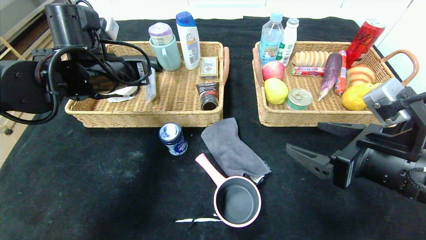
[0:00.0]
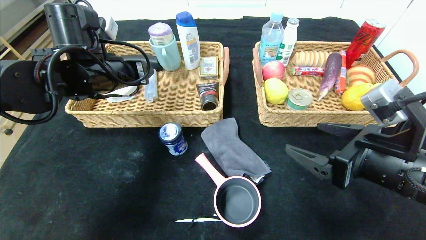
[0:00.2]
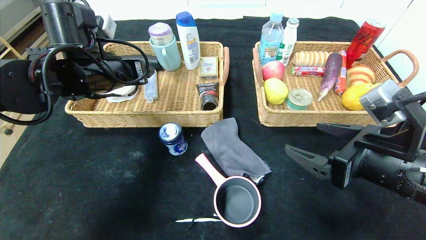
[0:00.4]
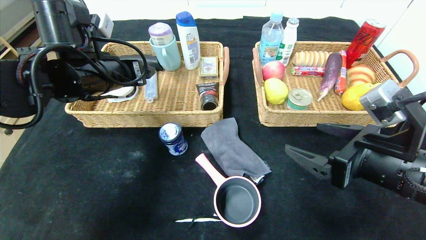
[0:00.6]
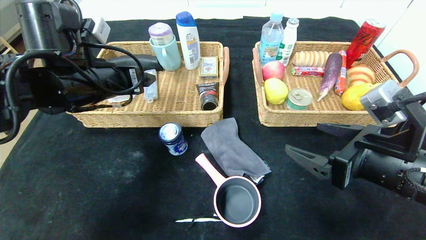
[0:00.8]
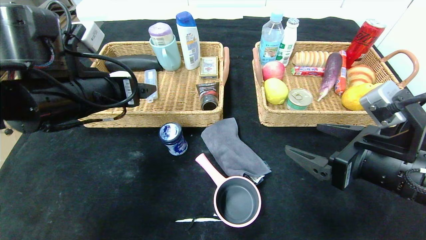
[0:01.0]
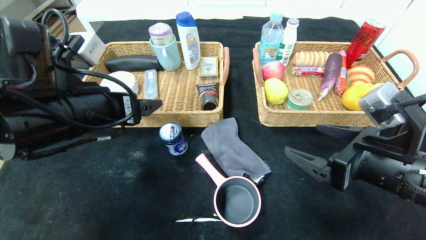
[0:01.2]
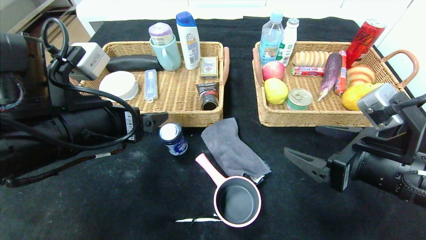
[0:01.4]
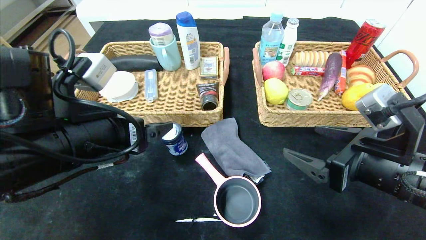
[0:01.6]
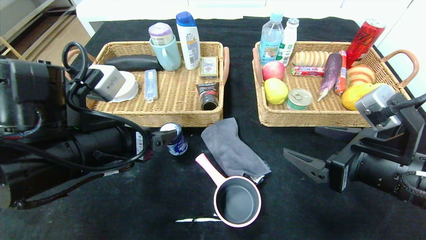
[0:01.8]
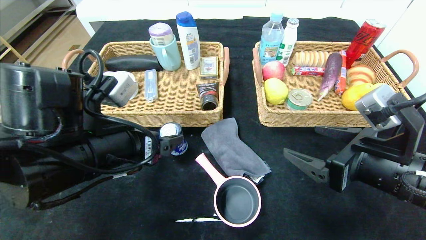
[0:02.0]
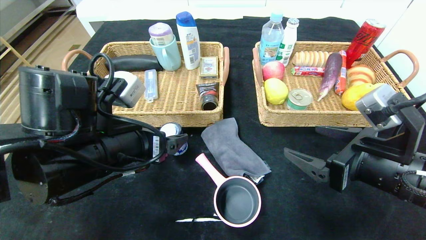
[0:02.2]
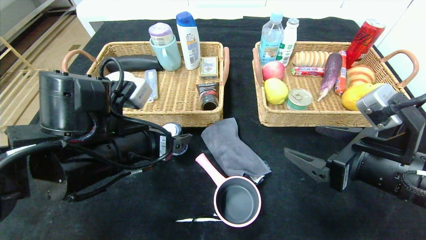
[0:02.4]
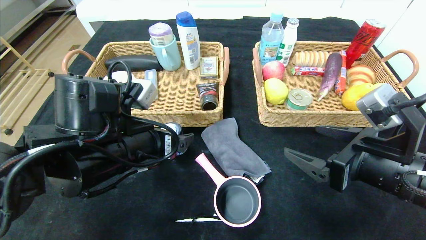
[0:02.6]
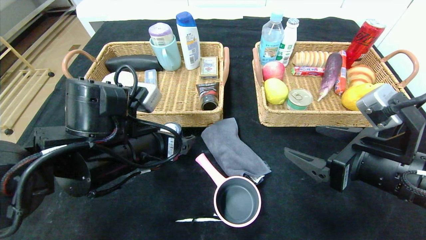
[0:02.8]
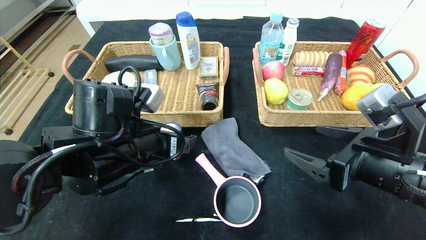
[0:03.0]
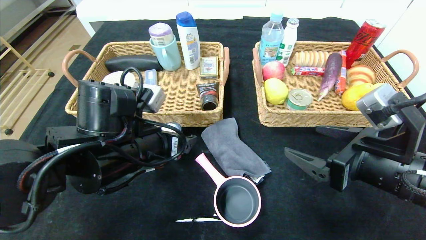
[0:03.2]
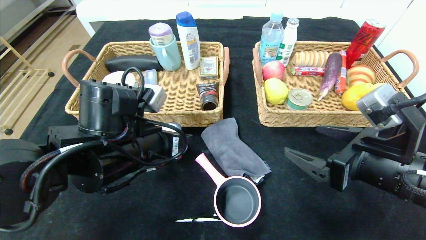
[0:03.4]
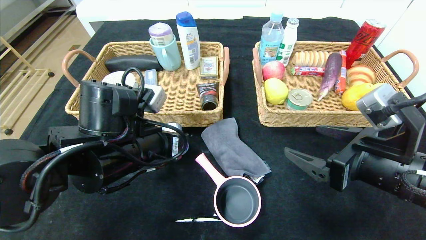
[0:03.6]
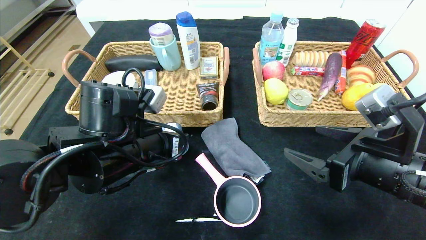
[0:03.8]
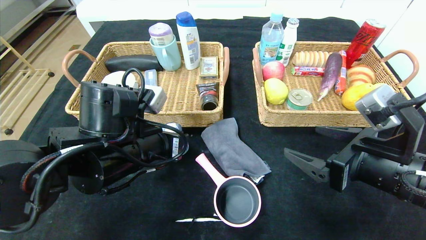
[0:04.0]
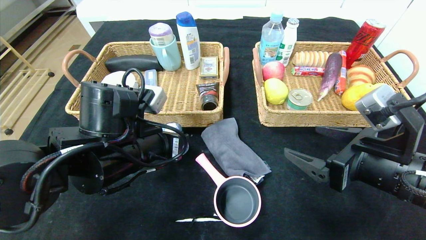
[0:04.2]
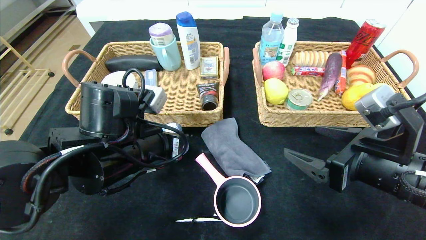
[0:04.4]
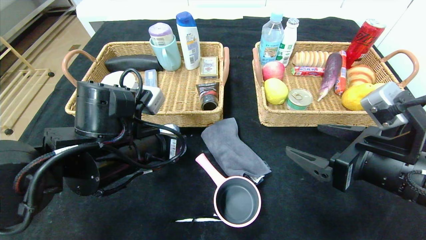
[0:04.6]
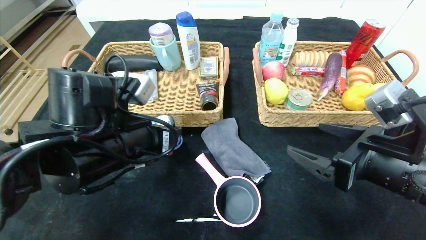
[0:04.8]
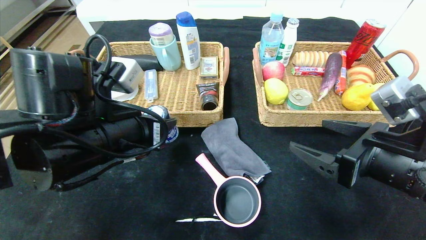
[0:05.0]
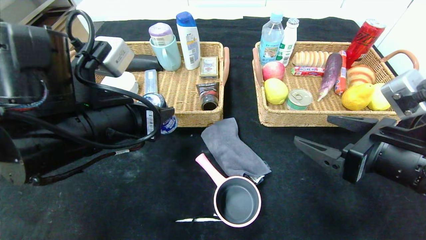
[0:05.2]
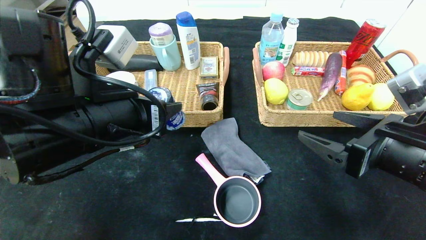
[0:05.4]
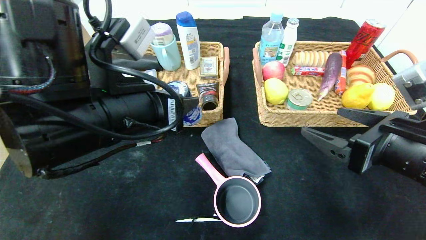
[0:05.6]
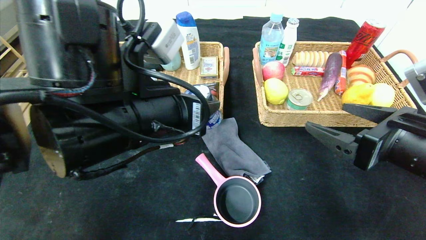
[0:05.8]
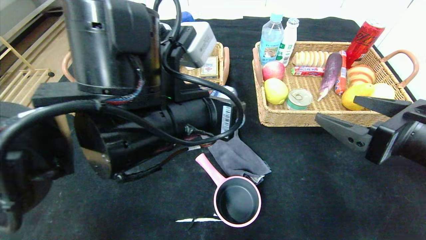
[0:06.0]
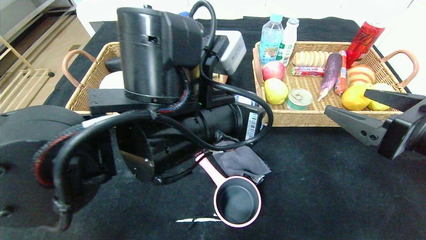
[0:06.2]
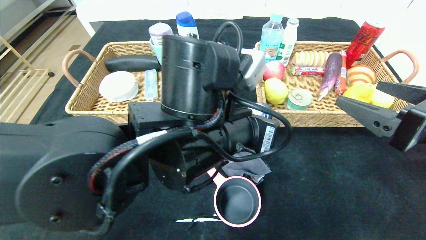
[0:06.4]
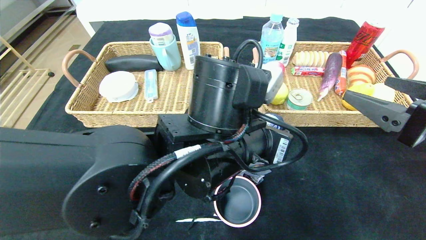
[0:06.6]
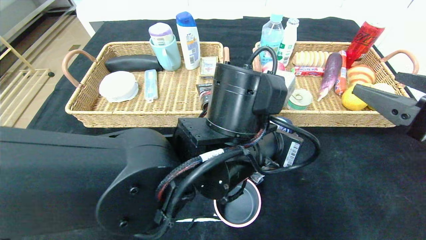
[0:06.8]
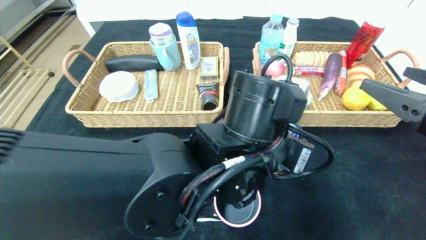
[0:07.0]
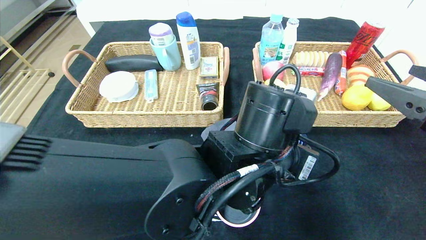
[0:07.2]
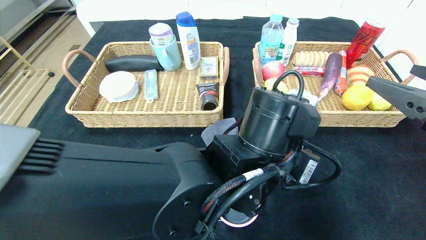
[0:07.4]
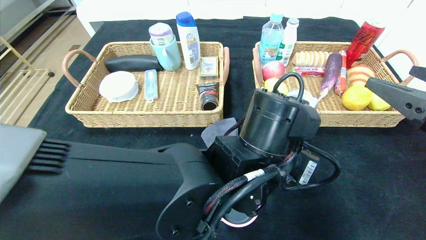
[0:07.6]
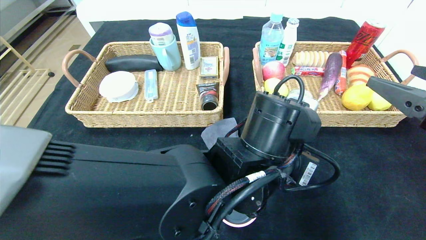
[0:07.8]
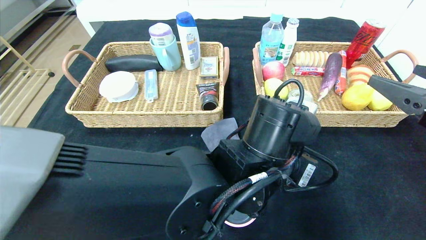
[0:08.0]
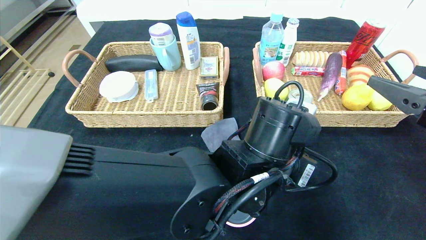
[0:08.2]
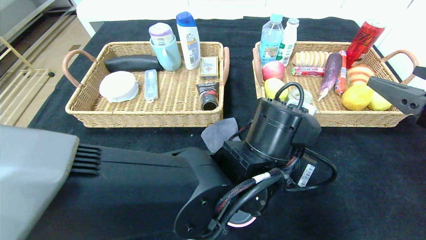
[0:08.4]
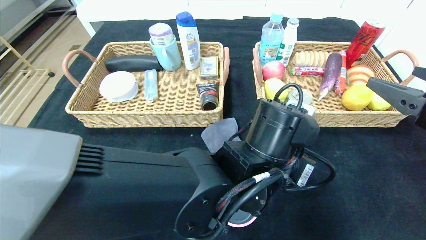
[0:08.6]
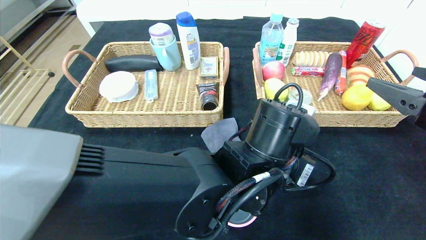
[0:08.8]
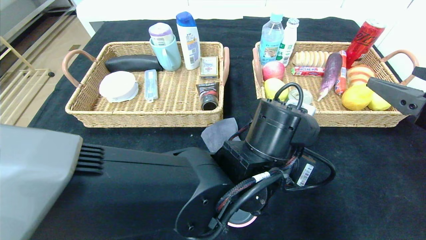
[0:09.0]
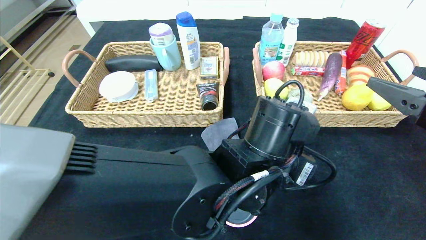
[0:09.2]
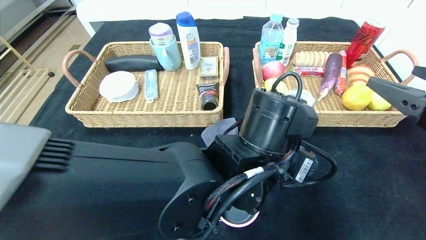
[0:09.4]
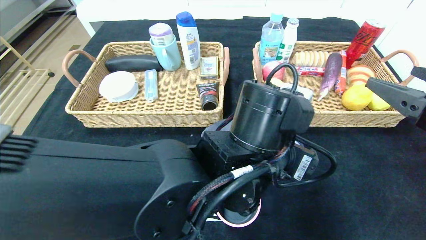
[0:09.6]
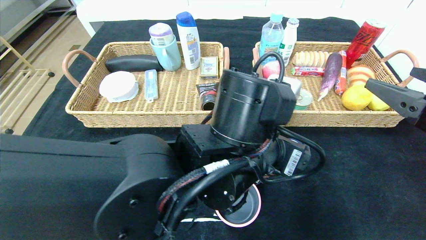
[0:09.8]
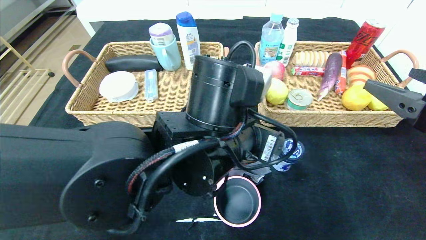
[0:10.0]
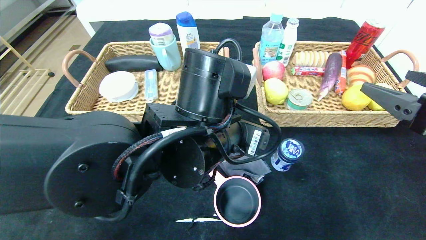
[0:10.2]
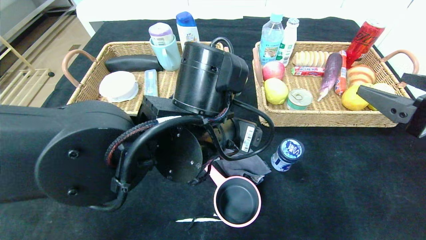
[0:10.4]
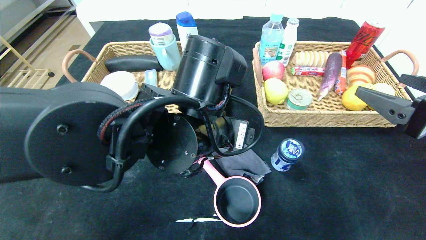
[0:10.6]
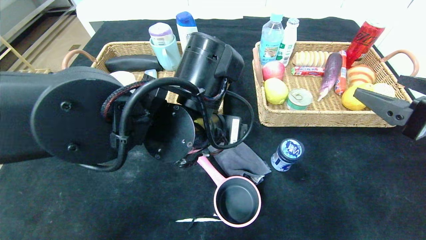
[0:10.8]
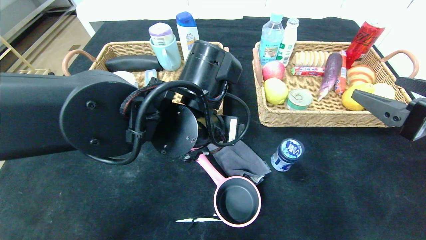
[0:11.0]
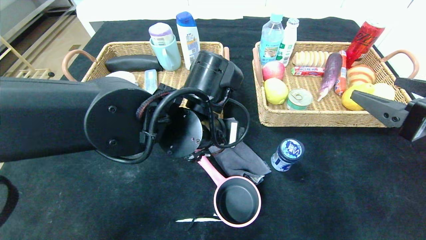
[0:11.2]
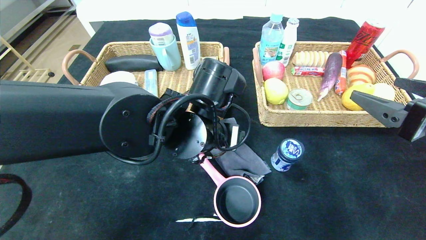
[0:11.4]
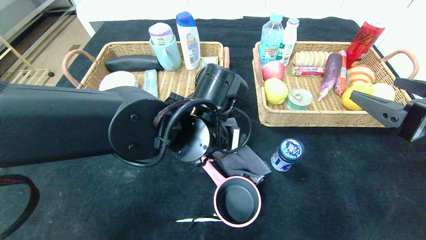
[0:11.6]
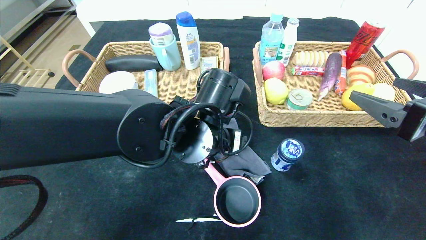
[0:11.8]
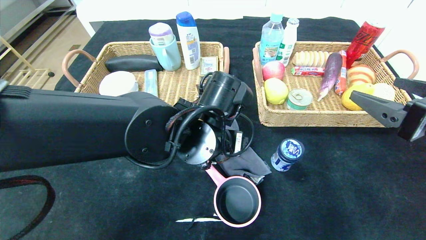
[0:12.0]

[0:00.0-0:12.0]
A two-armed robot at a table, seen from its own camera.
Step, 0:02.0 to 0:10.0: Place the round chewing gum in the center of the table.
0:00.0 to 0:01.6: The left gripper is displaced backward by about 15 cm, and opens up.
0:01.6 to 0:03.0: The left gripper changes place by roughly 5 cm.
0:03.0 to 0:04.4: The left gripper closes.
0:04.4 to 0:06.0: The left gripper heads to the right and upward, covering about 10 cm. Meanwhile the right gripper ends up some 5 cm from where it was.
0:06.0 to 0:07.6: The right gripper ends up some 5 cm from where it was. Meanwhile the left gripper is displaced to the right and downward by about 15 cm.
0:07.6 to 0:09.0: The grippers stay close to where they were, moving slightly.
0:09.0 to 0:10.4: The left gripper travels to the left and upward by roughly 10 cm.
0:10.4 to 0:12.0: The left gripper ends up approximately 5 cm from where it was.

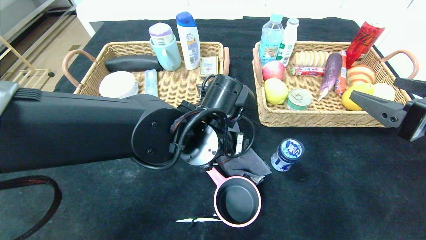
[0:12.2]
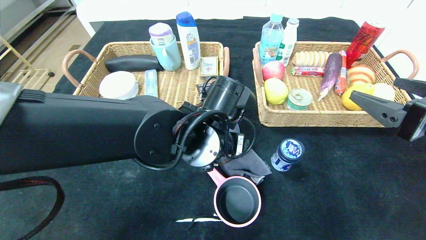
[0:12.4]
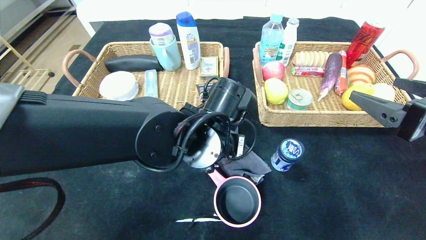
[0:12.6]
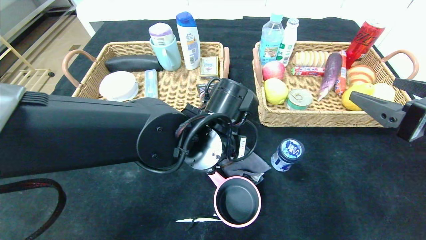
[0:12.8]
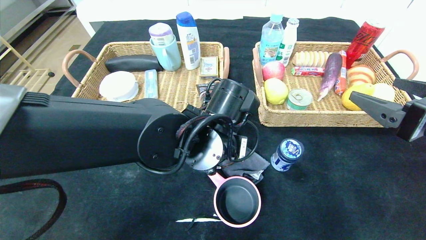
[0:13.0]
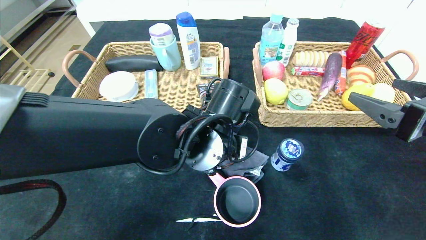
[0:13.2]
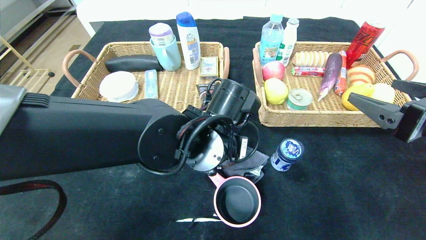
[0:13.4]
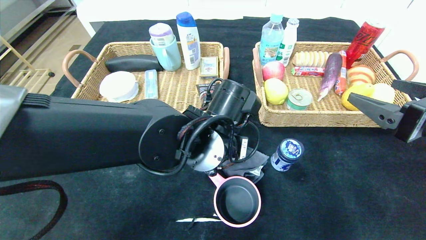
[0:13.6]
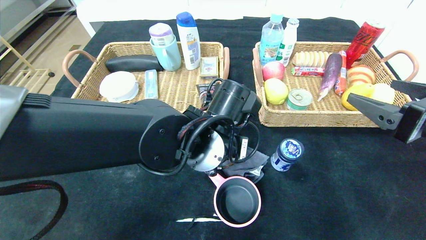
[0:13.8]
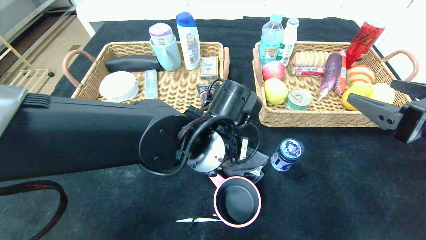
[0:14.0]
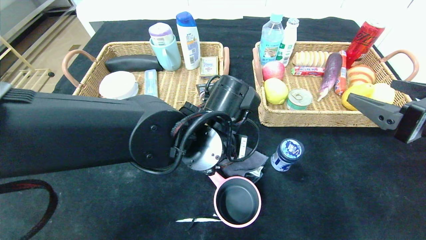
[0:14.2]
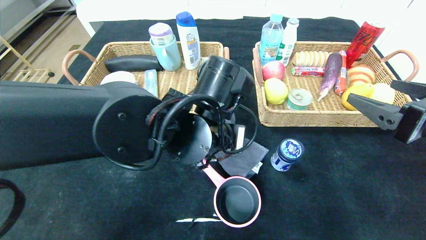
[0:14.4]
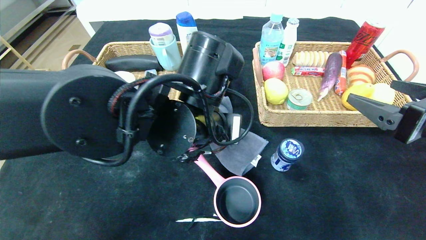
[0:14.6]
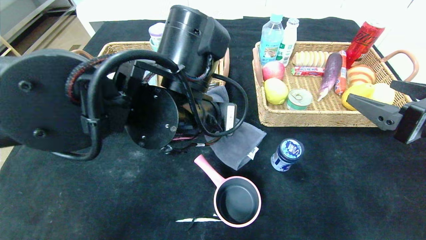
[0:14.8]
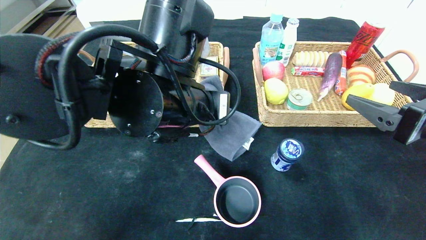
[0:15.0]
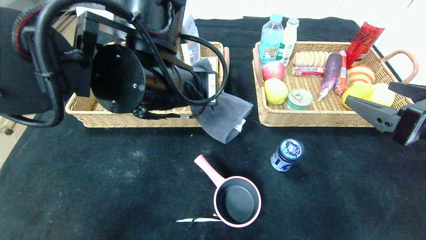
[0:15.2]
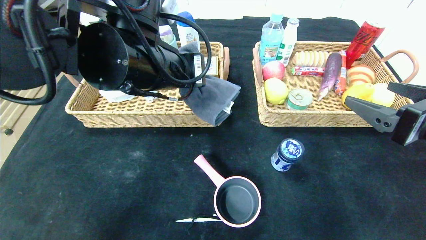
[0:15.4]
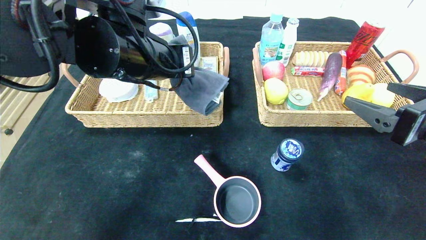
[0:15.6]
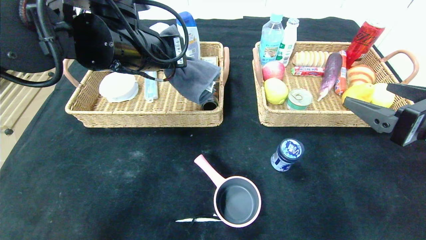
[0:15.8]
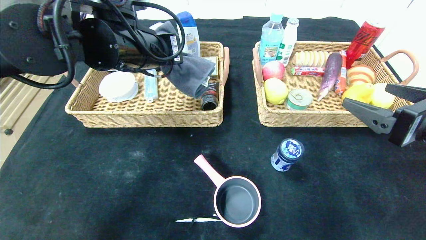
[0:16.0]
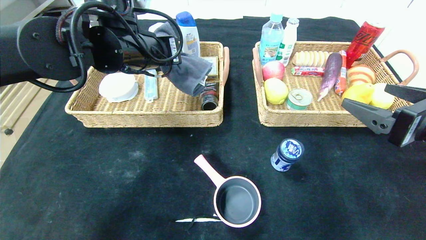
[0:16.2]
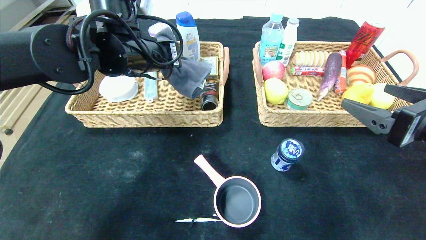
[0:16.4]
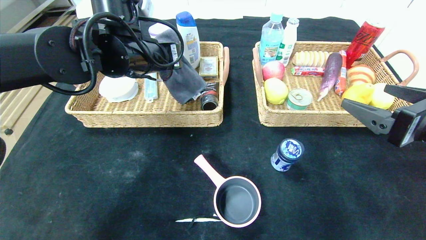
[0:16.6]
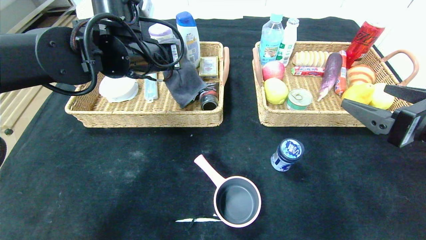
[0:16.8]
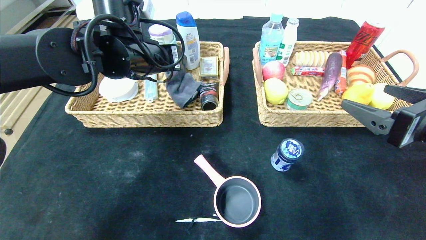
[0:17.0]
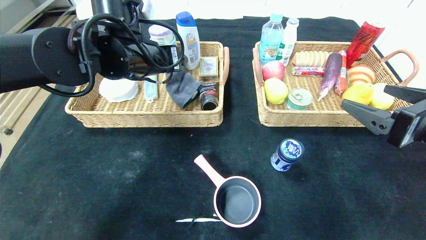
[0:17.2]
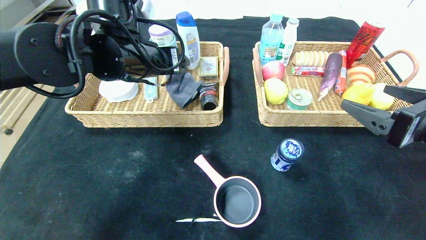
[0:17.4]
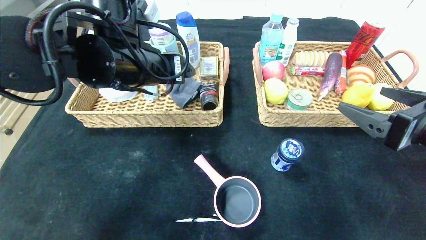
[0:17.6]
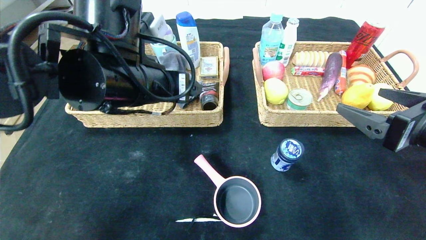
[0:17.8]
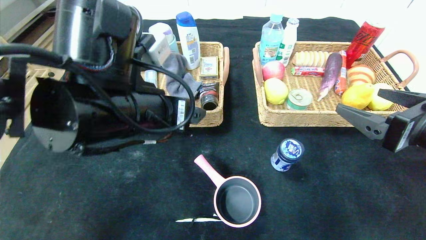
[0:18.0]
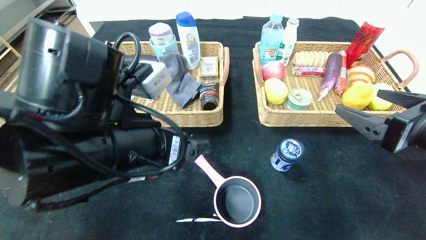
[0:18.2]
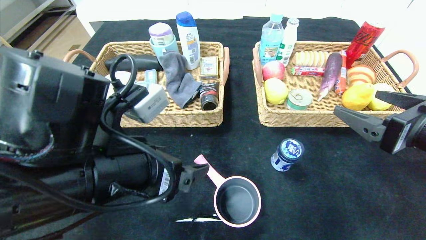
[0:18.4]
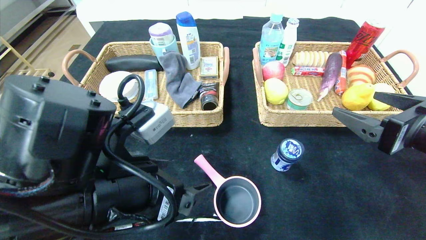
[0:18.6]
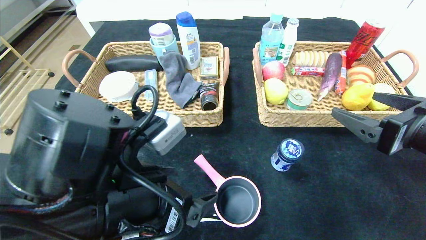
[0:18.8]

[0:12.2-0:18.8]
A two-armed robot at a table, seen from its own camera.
Step, 0:12.2 to 0:18.2: Pick up the gray towel and put it in the left basket.
0:12.2 to 0:13.8: The left gripper closes its fingers.
0:13.8 to 0:15.4: The left gripper shifts some 15 cm upward and to the left.
0:15.4 to 0:17.2: The left gripper moves forward, approximately 10 cm, and opens.
0:17.2 to 0:18.8: The left gripper is displaced backward and downward by roughly 20 cm.
